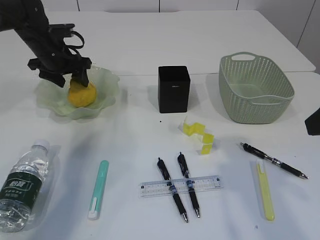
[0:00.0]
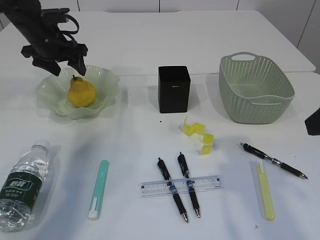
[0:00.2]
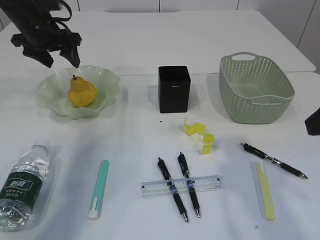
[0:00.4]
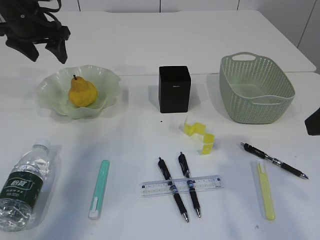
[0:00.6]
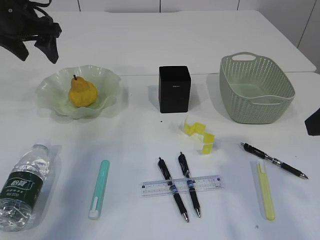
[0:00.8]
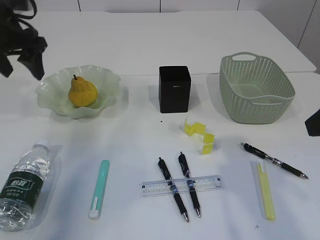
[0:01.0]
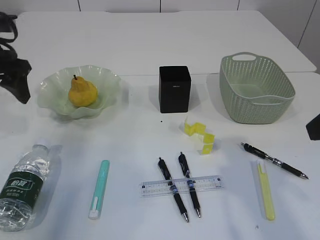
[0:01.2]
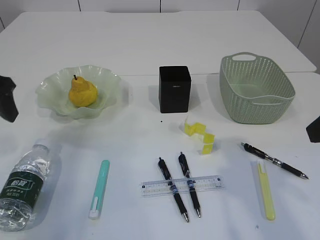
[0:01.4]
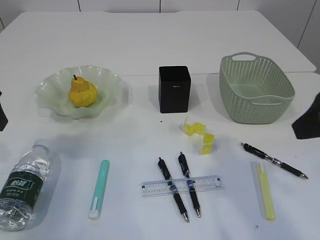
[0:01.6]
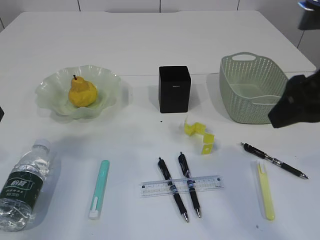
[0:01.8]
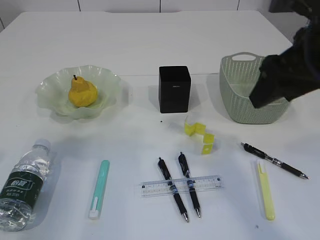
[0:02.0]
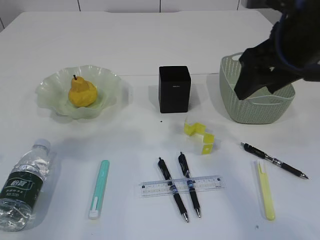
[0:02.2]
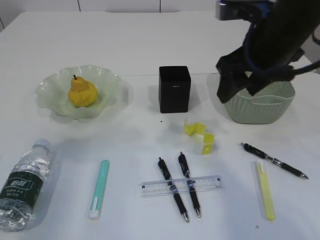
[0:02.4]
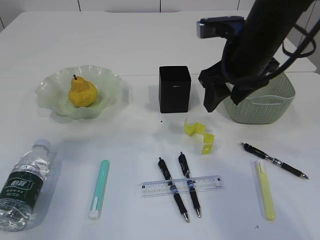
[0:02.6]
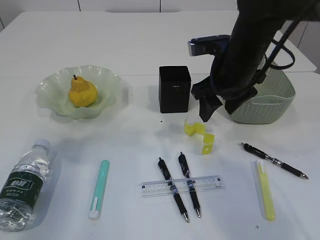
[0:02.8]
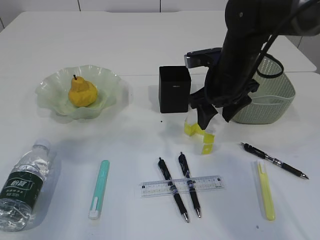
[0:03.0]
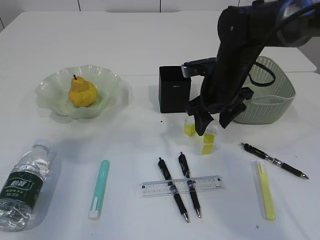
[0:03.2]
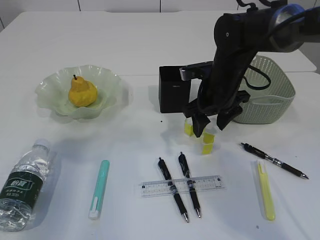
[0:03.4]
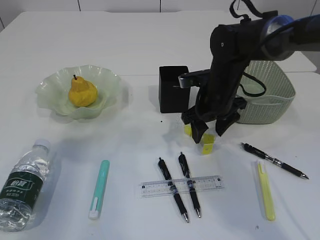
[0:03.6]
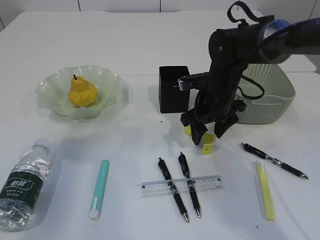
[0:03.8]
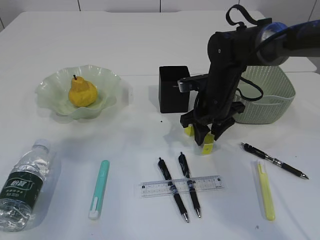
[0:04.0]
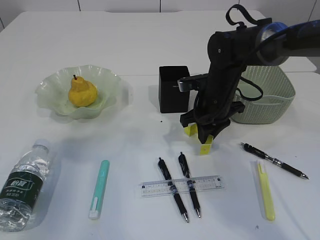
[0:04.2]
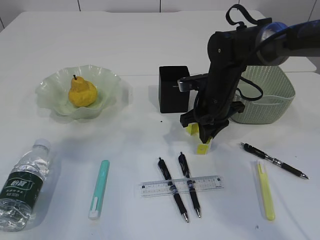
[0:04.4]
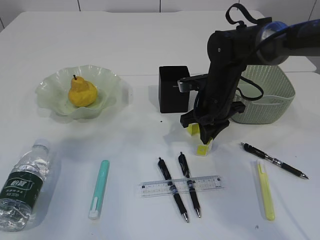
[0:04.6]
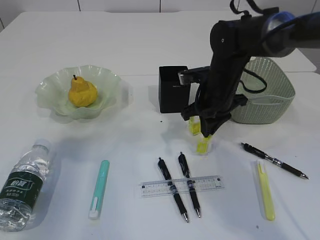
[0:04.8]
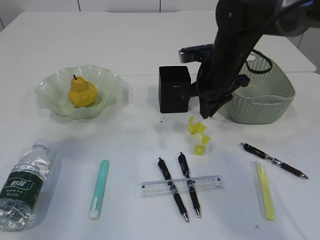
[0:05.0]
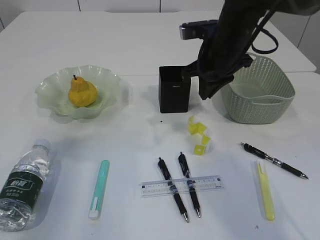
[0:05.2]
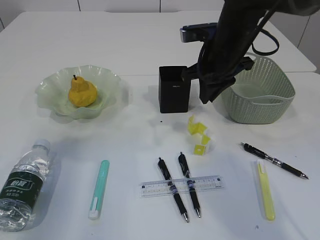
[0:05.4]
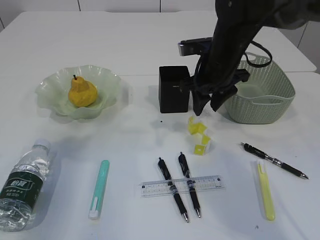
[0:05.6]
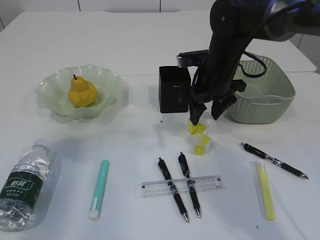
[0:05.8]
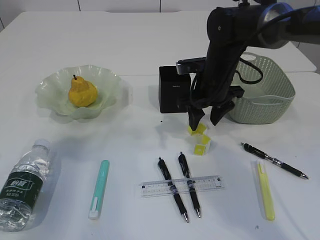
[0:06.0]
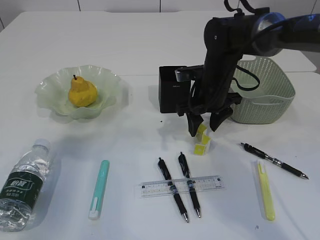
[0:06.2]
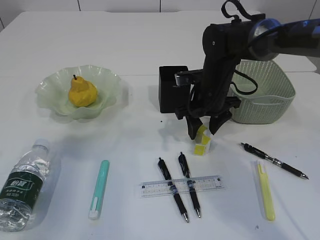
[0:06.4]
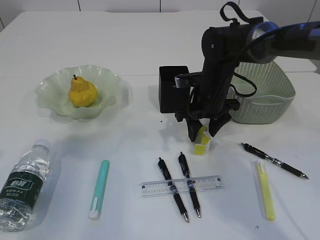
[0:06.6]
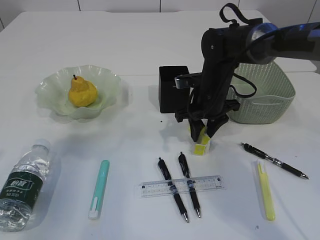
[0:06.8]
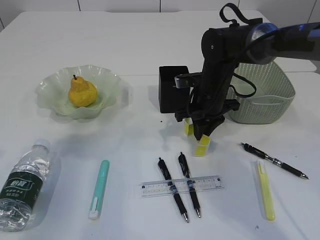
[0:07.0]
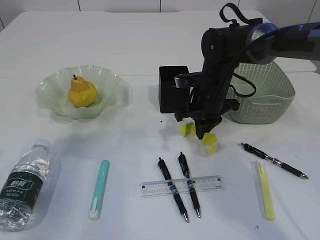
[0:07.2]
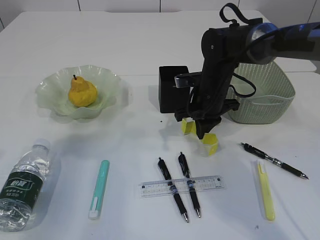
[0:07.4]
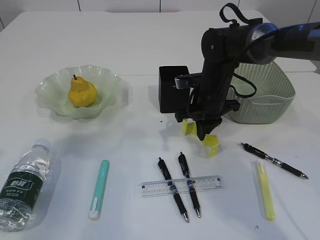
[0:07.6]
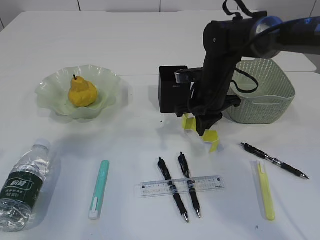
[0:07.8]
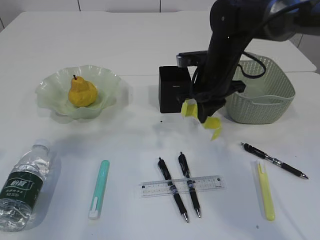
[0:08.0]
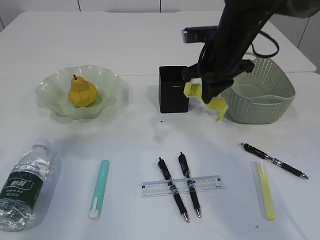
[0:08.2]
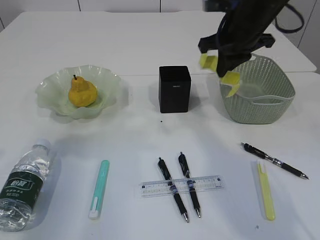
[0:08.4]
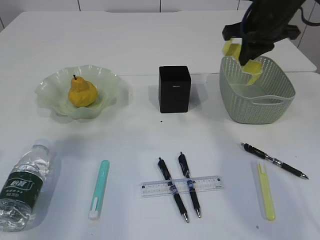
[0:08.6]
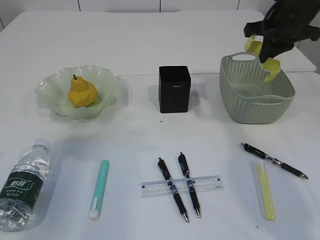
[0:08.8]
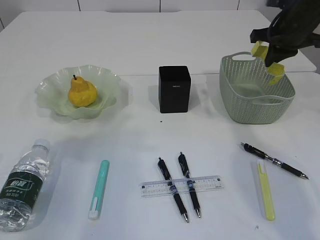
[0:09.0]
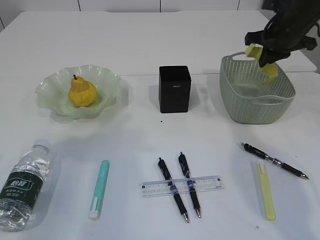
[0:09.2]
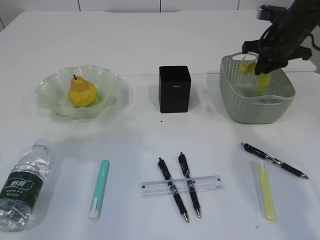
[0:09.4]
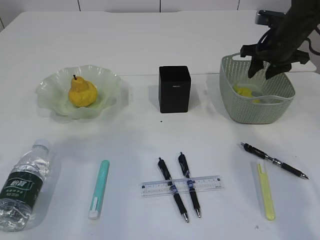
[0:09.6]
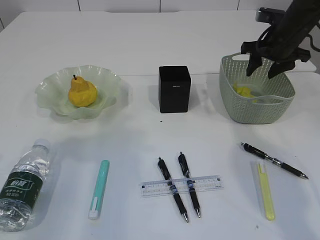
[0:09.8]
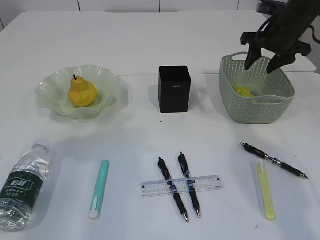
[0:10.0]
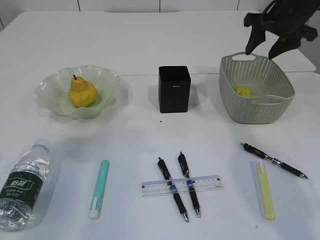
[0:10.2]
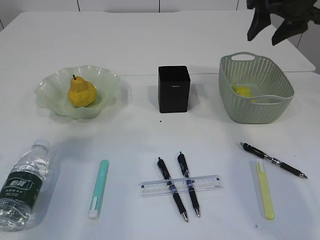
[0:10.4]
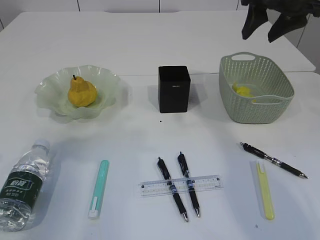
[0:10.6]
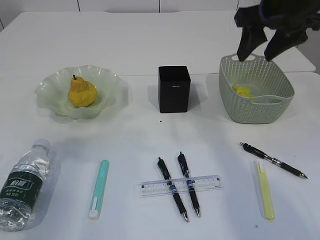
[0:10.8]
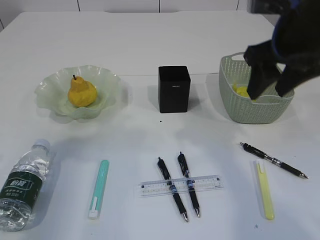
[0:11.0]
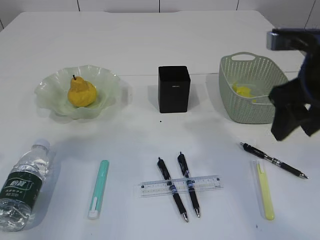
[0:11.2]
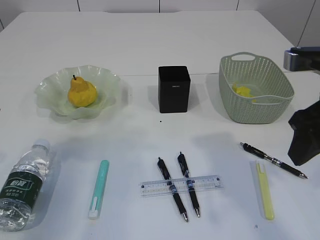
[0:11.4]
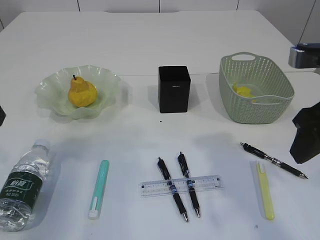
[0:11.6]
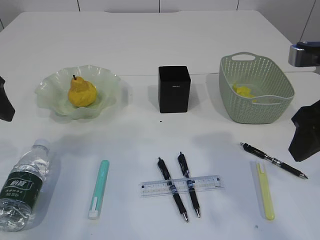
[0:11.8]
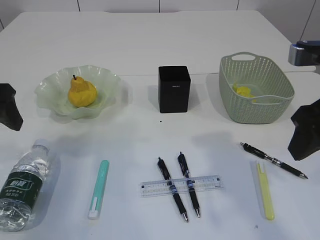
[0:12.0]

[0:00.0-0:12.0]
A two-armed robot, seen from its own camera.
Step, 0:00.2 to 0:07.8: Pick up the waste paper.
Step, 0:08.0 to 0:09.8: Place the waste paper in the basket.
0:00.0 to 0:01.6: The left gripper heads backward and upward, covering about 25 cm.
0:01.6 to 0:03.0: The right gripper travels forward, downward and to the left by roughly 25 cm.
0:03.0 to 0:04.4: The right gripper goes roughly 5 cm downward, and closes.
0:04.4 to 0:06.0: The right gripper goes upward and returns, approximately 10 cm each way, and opens its fingers.
0:06.0 to 0:07.6: The right gripper closes.
0:07.6 to 0:09.0: The right gripper goes approximately 20 cm to the right and upward.
0:09.0 to 0:10.4: The right gripper shifts some 5 cm upward, and opens up.
0:10.4 to 0:12.0: The left gripper changes place by some 5 cm. Meanwhile the right gripper heads backward, covering some 20 cm.

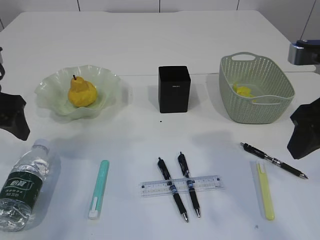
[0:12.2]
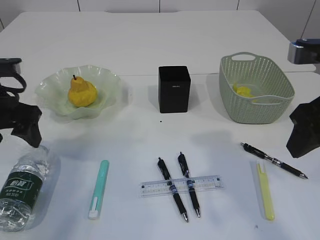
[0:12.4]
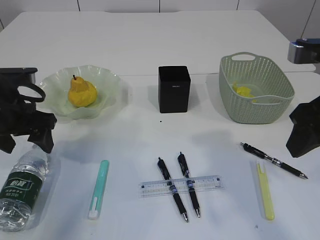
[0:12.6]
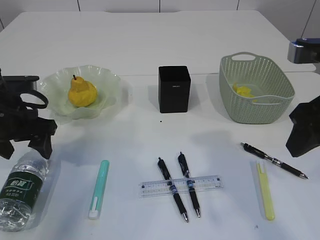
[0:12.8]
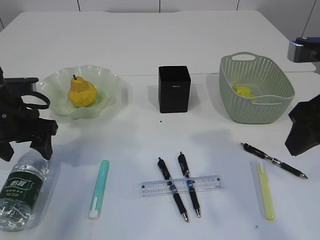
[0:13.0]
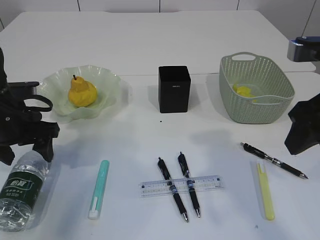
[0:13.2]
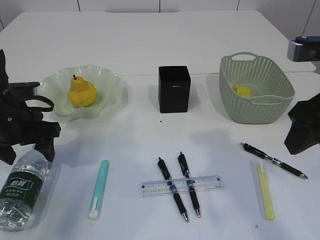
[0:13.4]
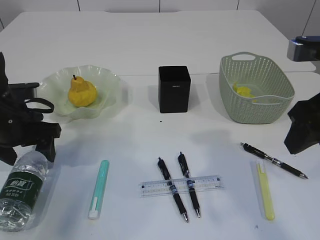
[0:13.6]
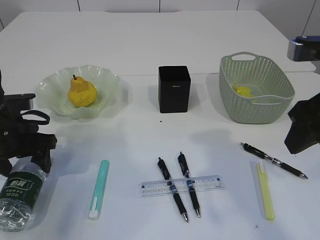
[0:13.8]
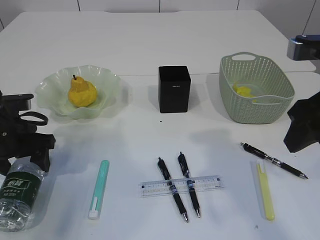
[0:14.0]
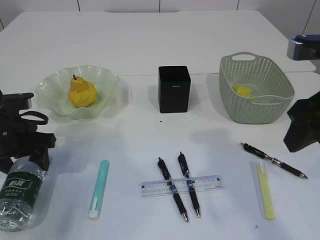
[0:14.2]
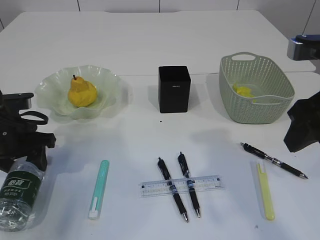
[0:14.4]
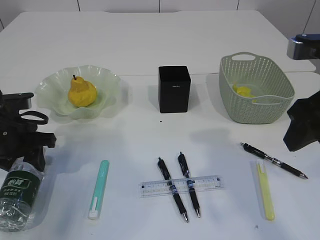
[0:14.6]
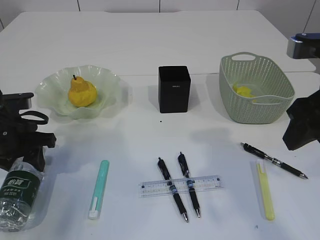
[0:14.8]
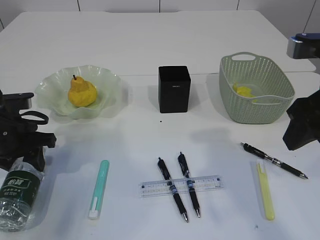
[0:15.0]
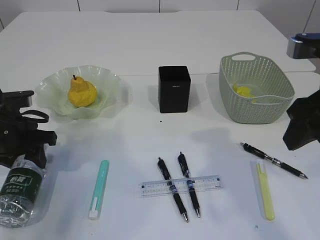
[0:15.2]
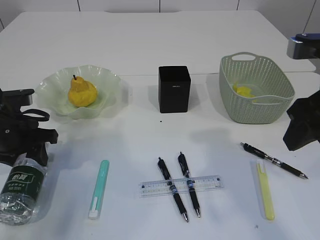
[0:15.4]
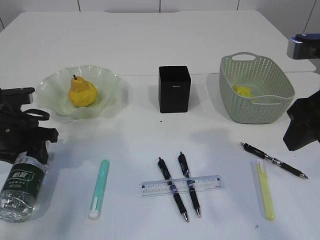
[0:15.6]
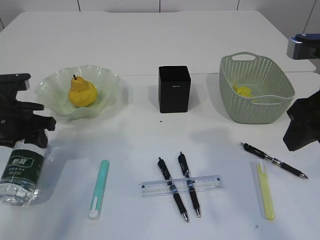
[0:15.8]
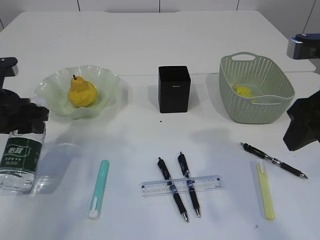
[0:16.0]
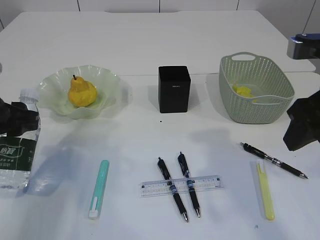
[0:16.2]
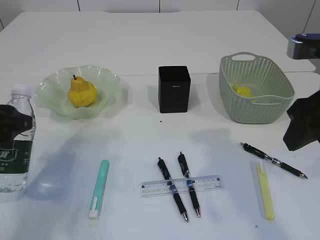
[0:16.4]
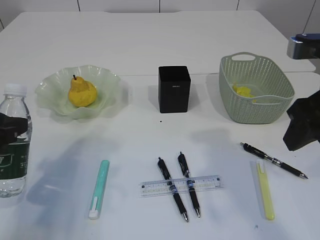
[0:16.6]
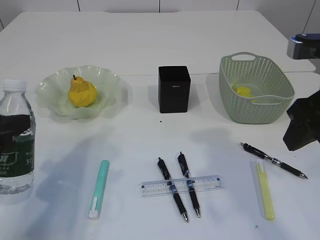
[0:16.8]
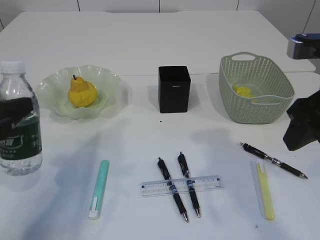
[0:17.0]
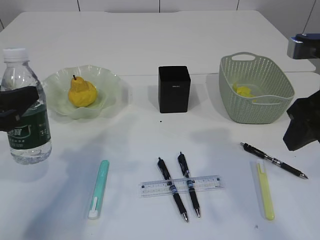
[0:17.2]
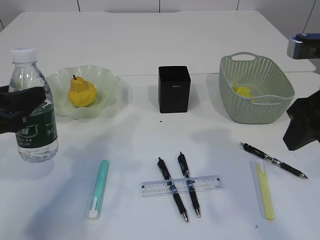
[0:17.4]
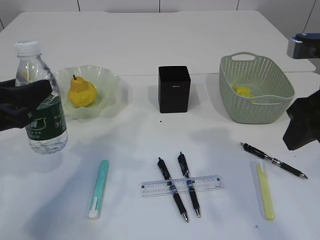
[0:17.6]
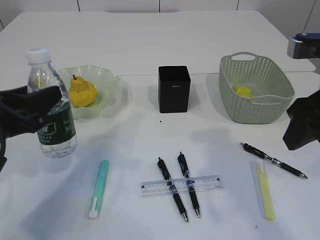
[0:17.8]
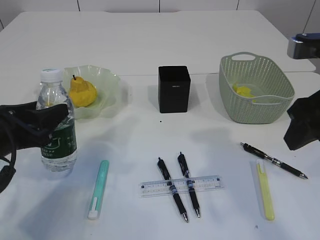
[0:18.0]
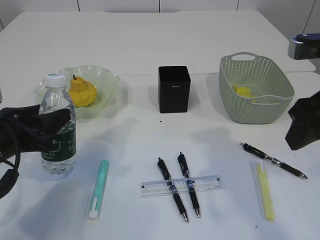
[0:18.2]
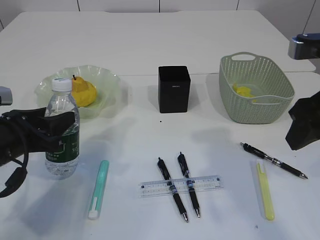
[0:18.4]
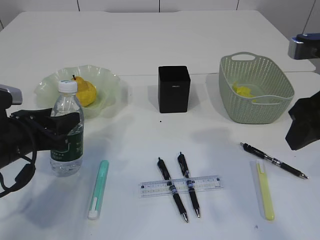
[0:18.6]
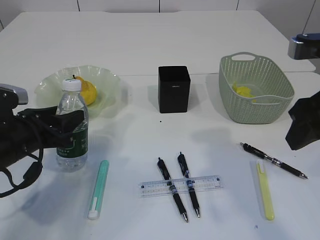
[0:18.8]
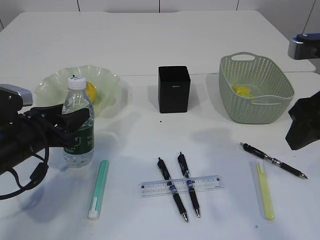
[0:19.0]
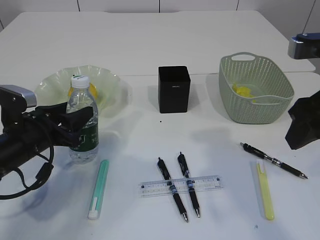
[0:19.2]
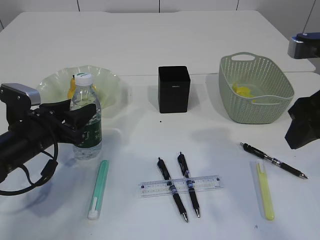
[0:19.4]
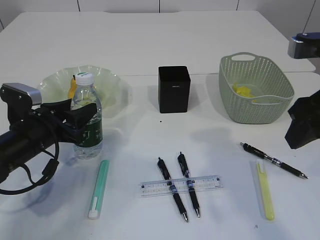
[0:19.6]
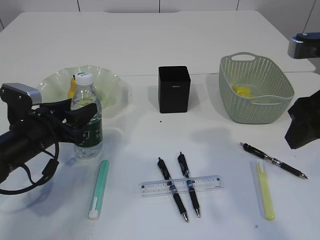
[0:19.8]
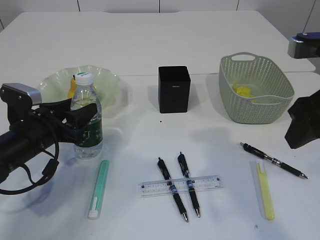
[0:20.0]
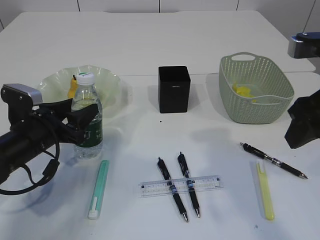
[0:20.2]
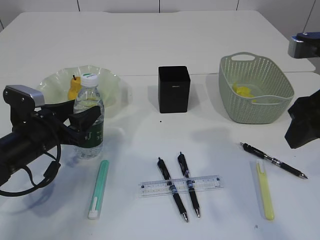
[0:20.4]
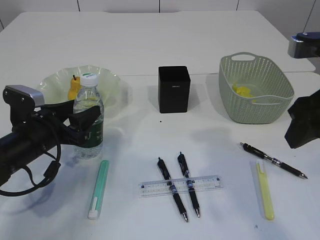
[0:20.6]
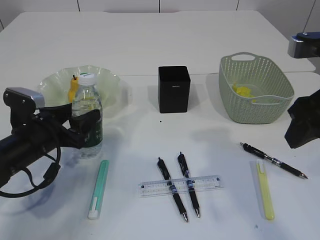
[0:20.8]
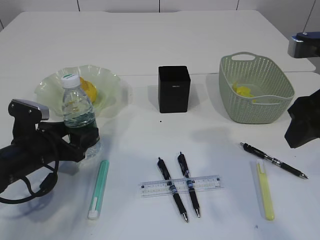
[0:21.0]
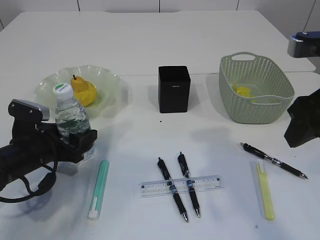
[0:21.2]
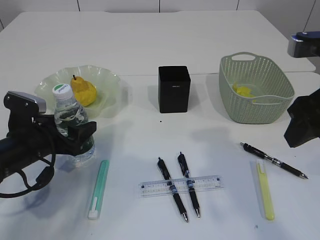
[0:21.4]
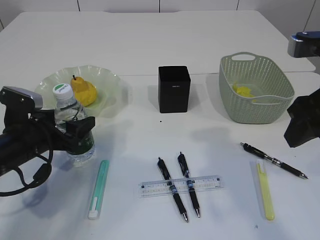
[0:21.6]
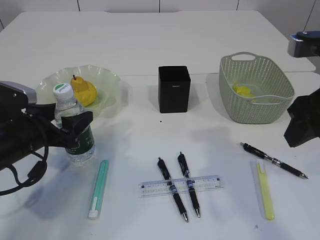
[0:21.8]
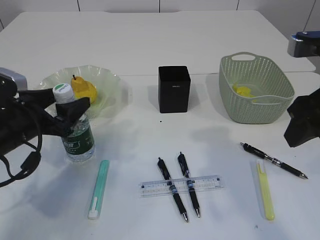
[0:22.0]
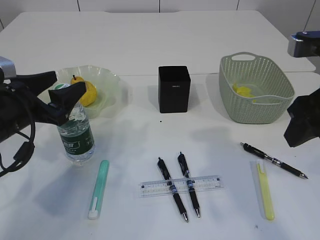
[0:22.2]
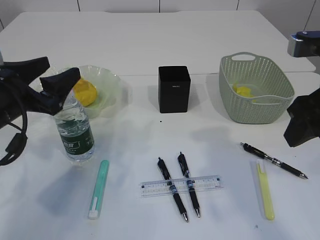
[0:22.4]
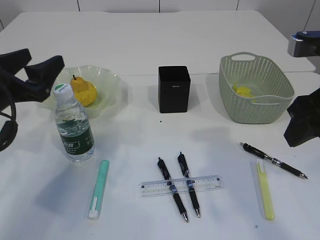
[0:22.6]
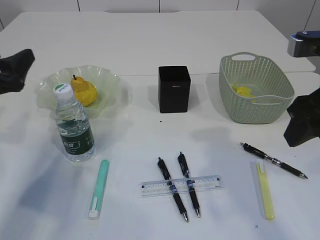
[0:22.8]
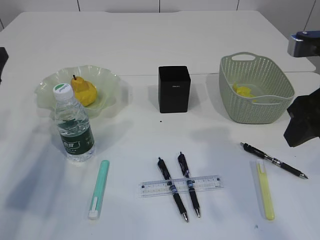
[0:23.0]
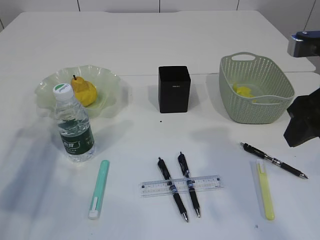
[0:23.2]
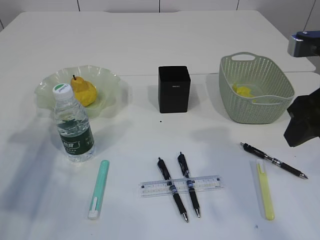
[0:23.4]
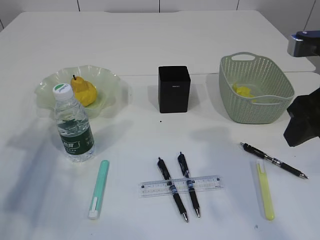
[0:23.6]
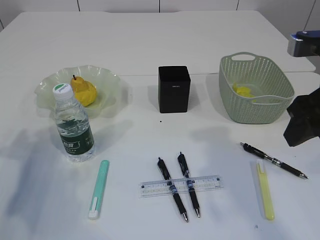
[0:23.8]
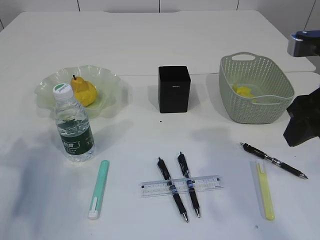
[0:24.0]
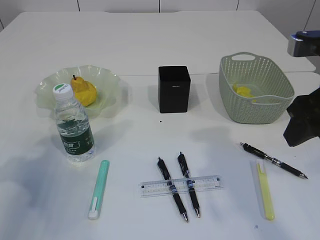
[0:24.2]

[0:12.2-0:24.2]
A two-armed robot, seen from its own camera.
Step, 0:12.2 to 0:16.0: Pick up the bottle with the left arm.
Step, 0:16.2 to 0:22.4: Place the bottle.
0:12.2 to 0:13.8: The left gripper is displaced downward by approximately 10 cm.
0:13.8 to 0:15.2: The left gripper closes its fingers.
0:15.2 to 0:16.6: The left gripper is displaced backward and upward by roughly 10 cm.
0:16.6 to 0:18.2: The left gripper heads downward, covering roughly 5 cm.
0:18.2 to 0:19.8: The left gripper travels downward and forward by some 10 cm.
0:19.8 to 0:21.2: The left gripper opens.
0:21.2 to 0:22.6: The left gripper goes approximately 15 cm upward.
0:22.6 to 0:24.2: The left gripper shifts roughly 10 cm to the left.
